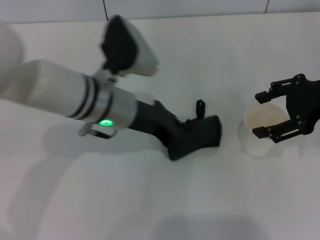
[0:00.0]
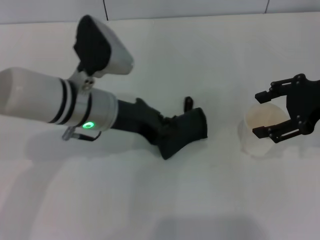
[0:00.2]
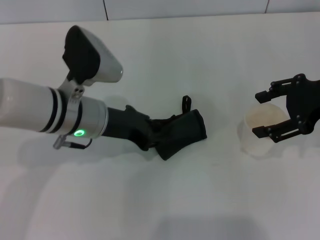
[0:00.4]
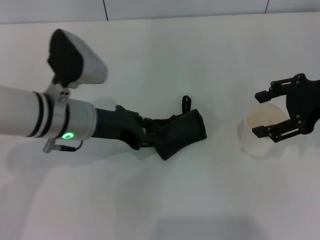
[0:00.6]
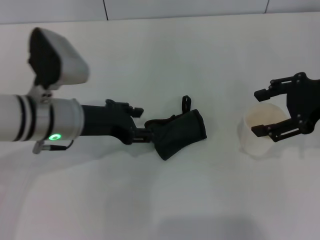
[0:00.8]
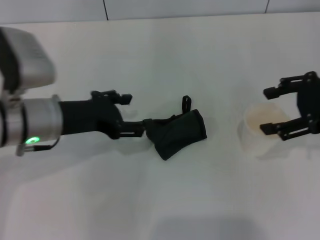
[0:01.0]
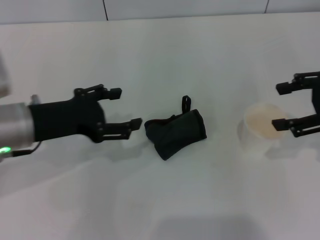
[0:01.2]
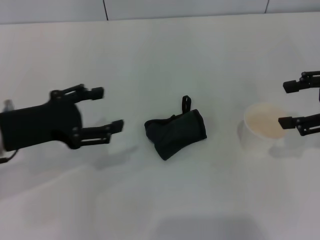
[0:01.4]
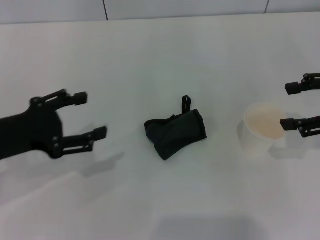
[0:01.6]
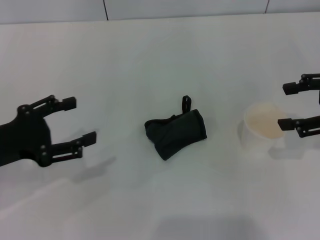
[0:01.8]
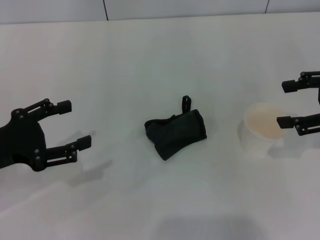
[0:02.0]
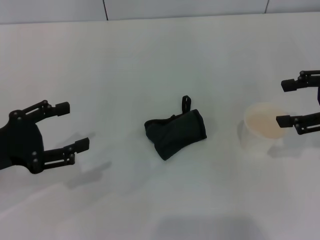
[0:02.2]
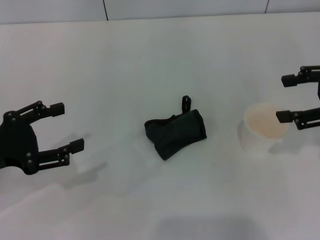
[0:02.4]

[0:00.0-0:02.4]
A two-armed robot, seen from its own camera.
Step, 0:00.2 to 0:01.2: Place the rag on the table with the left gripper.
0:00.0 to 0:01.2: The left gripper is displaced to the left and backward by roughly 15 cm, and opens its fingers.
0:01.2 to 0:02.4: The left gripper travels to the left and backward by about 10 cm.

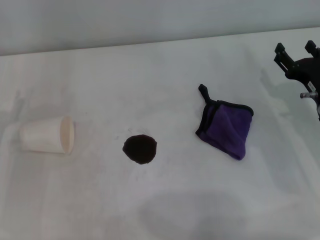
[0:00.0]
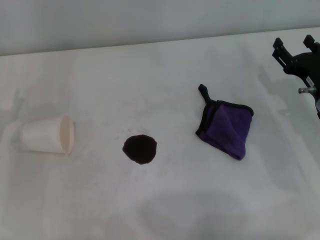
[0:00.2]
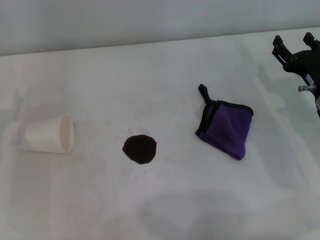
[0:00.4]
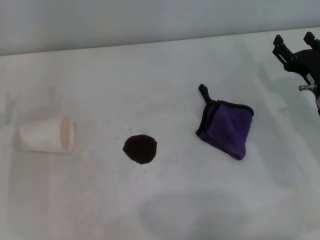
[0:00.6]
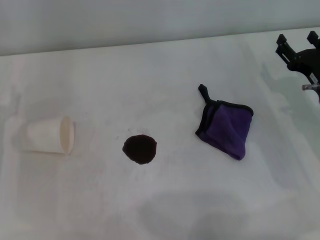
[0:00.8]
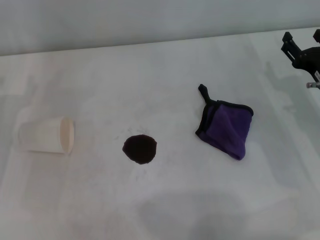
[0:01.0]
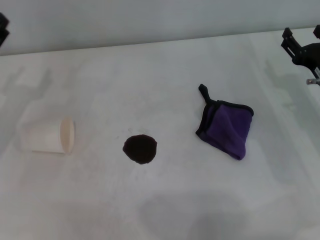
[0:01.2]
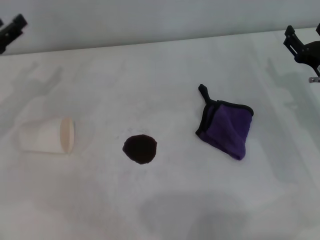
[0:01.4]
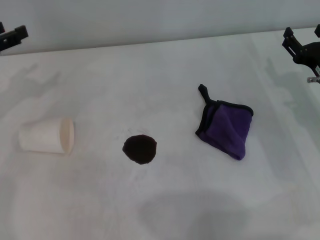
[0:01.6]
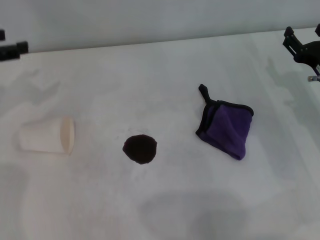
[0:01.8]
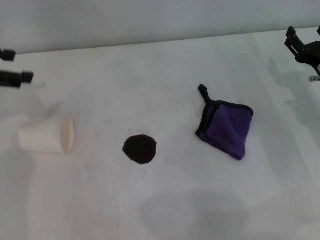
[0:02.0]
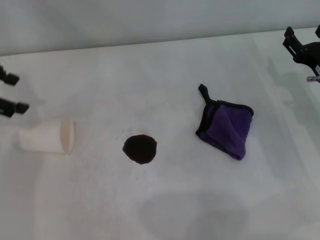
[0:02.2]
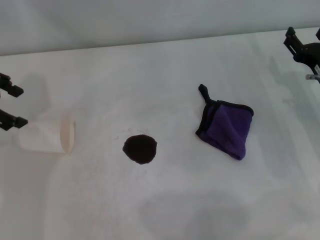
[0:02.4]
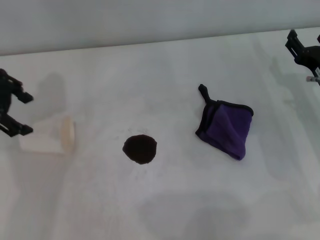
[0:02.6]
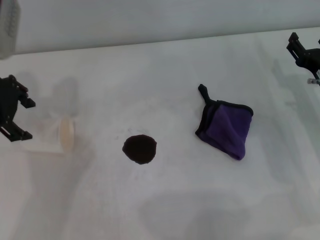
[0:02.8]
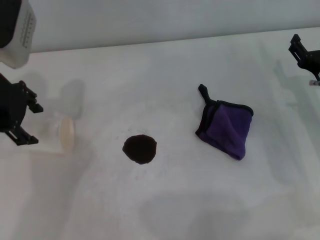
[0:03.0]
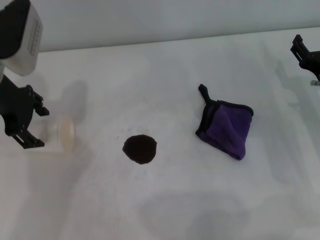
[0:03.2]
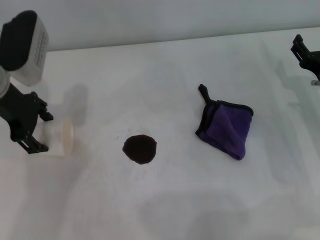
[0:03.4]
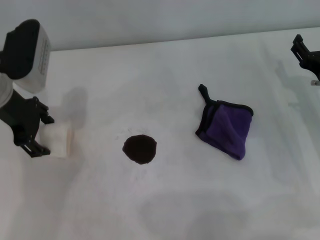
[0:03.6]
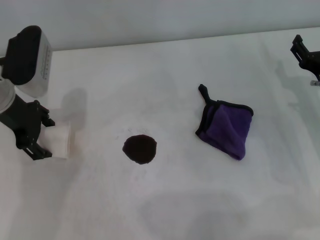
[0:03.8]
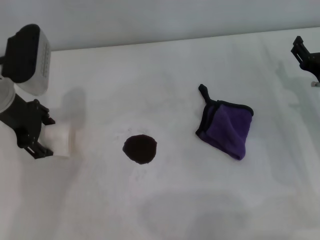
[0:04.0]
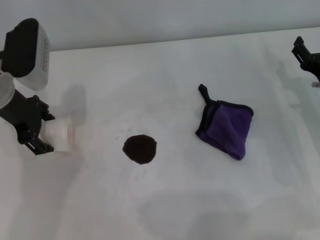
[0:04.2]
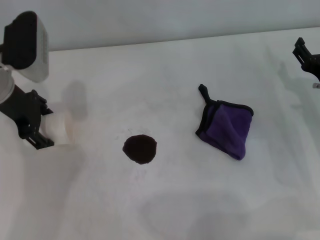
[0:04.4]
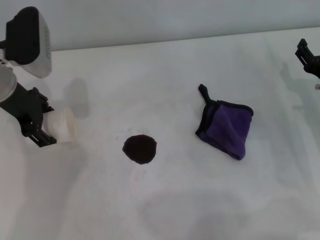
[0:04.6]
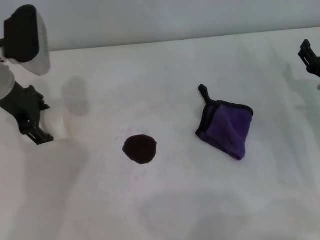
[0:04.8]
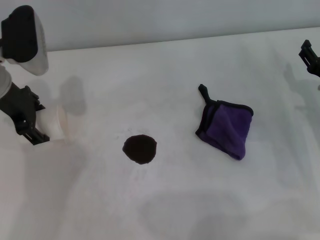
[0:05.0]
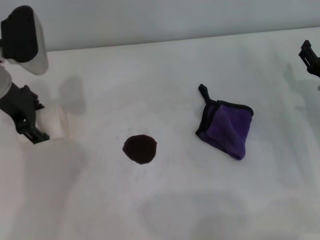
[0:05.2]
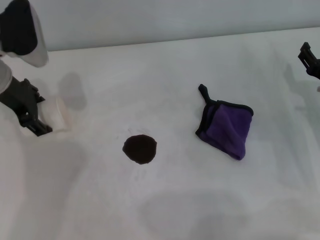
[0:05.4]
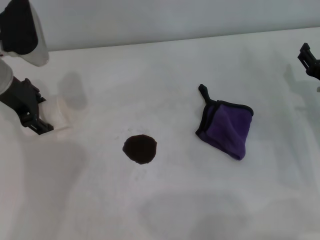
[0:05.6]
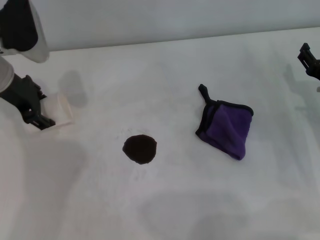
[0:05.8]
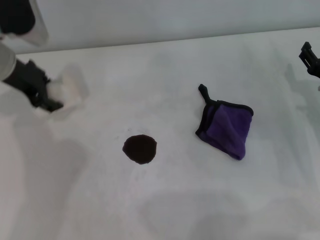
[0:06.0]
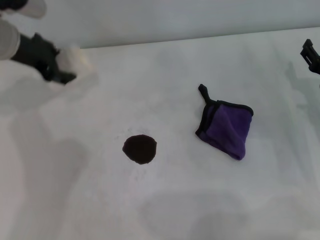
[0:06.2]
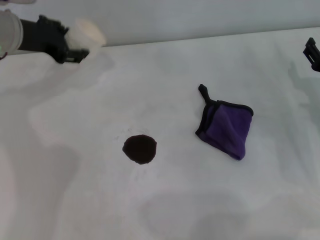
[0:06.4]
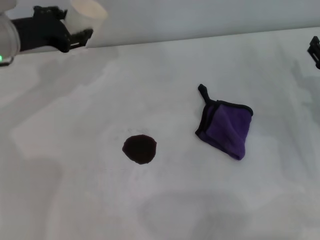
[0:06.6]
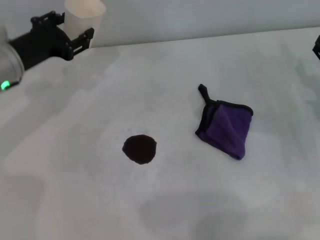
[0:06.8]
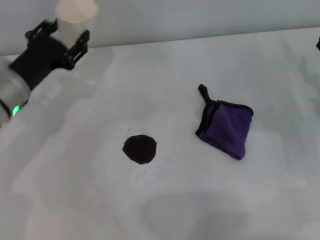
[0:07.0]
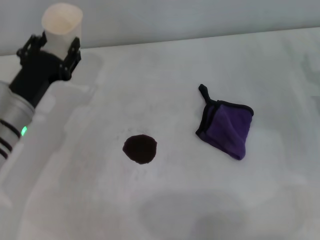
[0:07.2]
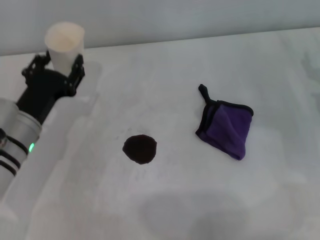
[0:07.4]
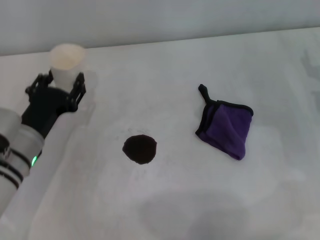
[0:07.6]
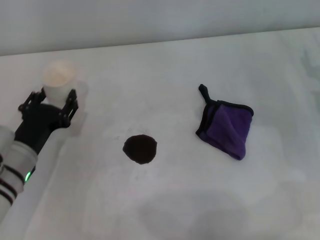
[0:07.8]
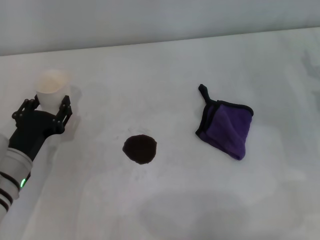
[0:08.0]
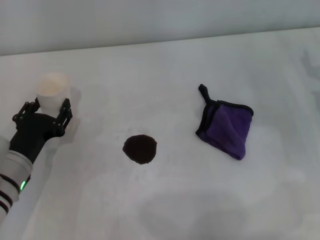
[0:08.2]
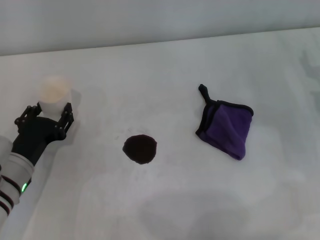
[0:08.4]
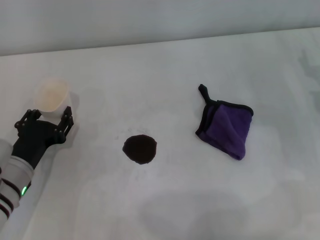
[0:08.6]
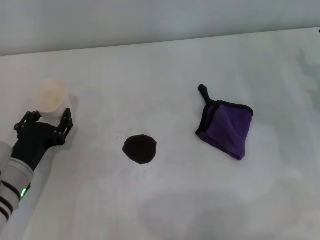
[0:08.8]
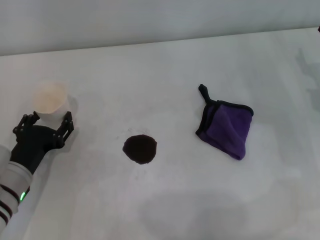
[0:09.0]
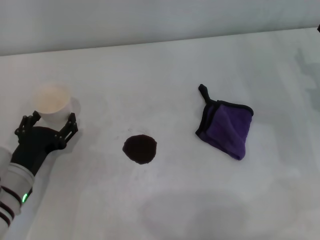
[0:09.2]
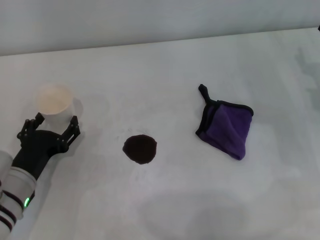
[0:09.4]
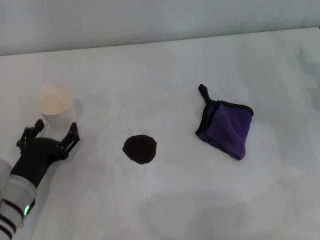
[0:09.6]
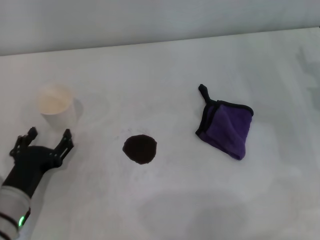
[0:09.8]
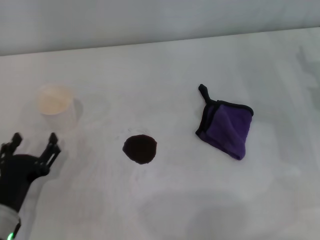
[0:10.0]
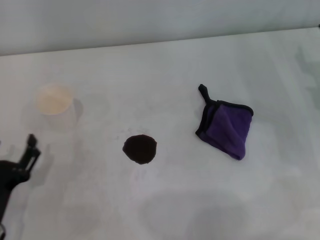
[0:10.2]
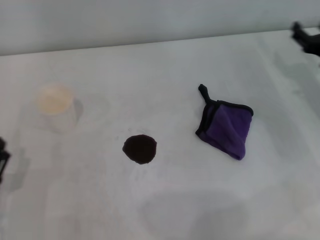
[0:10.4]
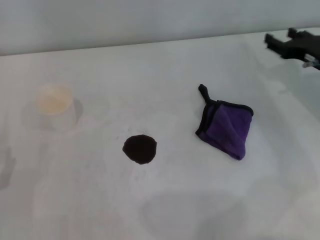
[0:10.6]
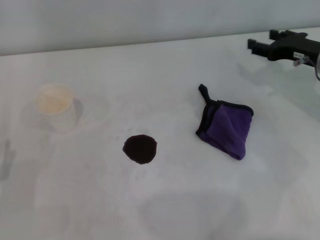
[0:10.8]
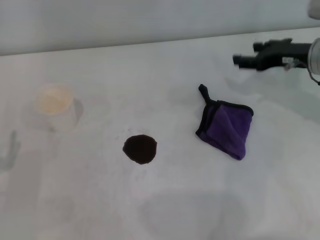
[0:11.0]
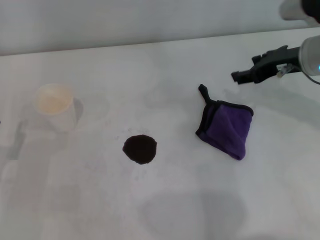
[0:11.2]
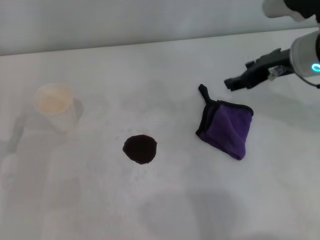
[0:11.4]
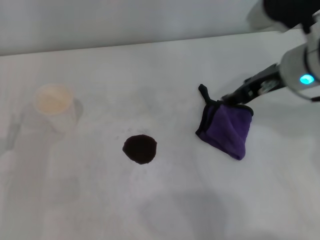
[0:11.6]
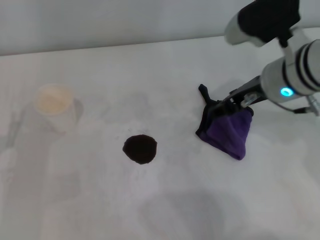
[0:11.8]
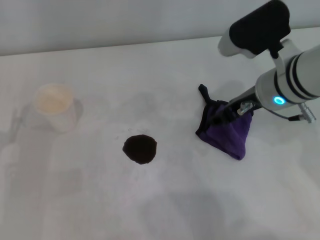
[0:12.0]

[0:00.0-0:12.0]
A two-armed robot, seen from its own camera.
Step, 0:00.0 to 0:04.4: Grasp the paper cup with the left gripper.
Step, 0:04.6 to 0:09.4: Stand the paper cup upright with the left gripper.
0:00.0 to 0:01.6: The left gripper goes about 15 cm upward and forward.
0:01.6 to 0:03.0: The left gripper heads to the right, covering approximately 10 cm.
0:03.0 to 0:04.4: The grippers stay close to where they were, moving slightly.
0:04.4 to 0:06.0: The left gripper closes its fingers.
0:06.0 to 0:07.6: The left gripper shifts approximately 20 cm downward and backward. The right gripper moves some 5 cm.
0:07.6 to 0:09.0: The left gripper moves approximately 5 cm.
0:09.0 to 0:10.4: The left gripper shifts approximately 10 cm backward, and opens.
0:10.4 to 0:12.0: The right gripper moves to the left and upward, some 20 cm.

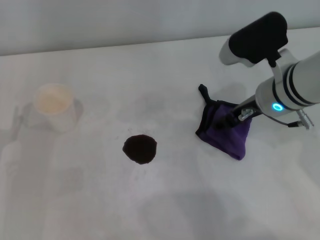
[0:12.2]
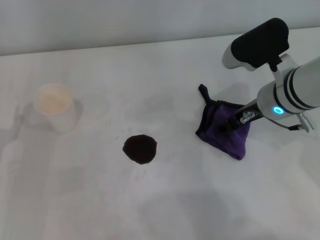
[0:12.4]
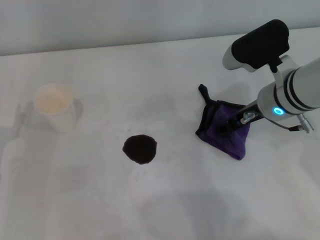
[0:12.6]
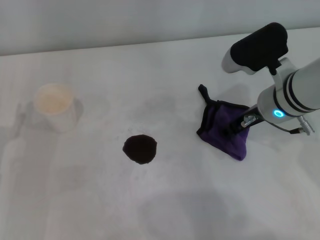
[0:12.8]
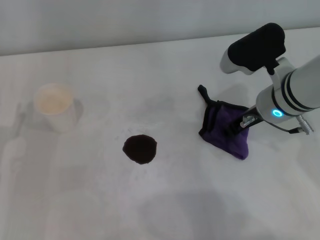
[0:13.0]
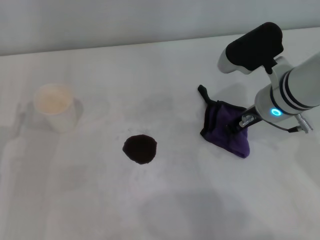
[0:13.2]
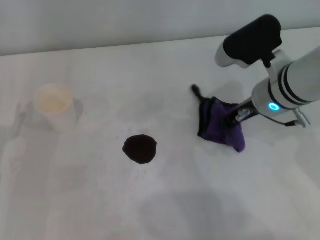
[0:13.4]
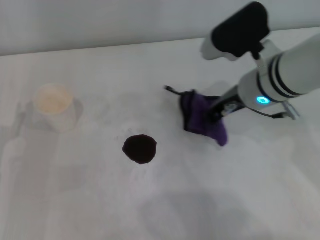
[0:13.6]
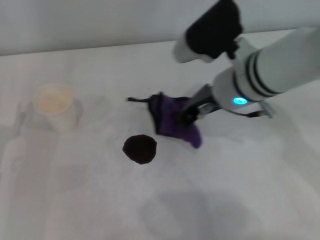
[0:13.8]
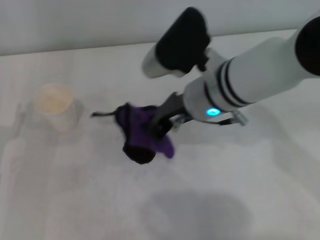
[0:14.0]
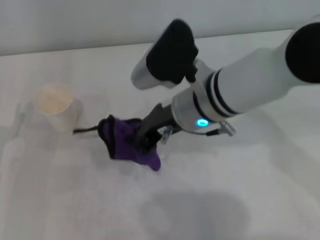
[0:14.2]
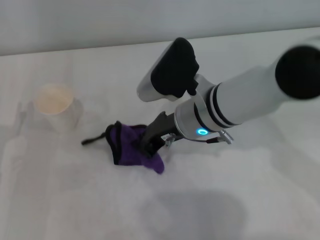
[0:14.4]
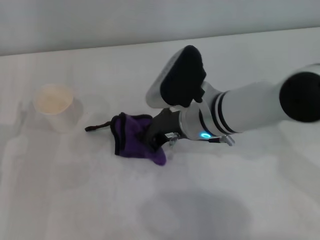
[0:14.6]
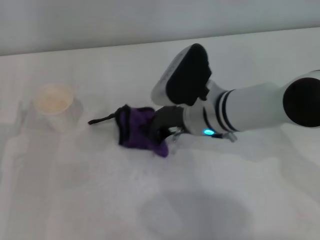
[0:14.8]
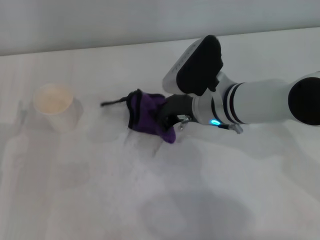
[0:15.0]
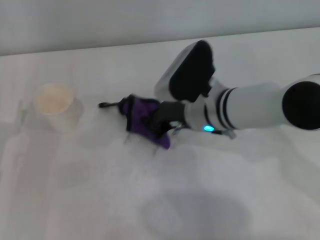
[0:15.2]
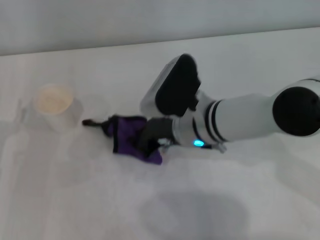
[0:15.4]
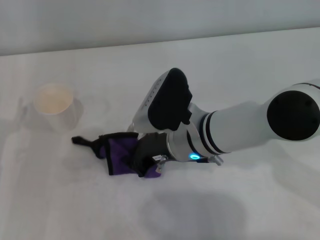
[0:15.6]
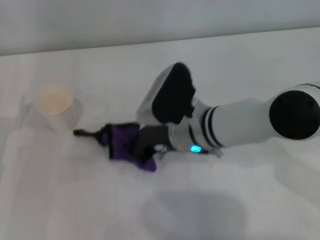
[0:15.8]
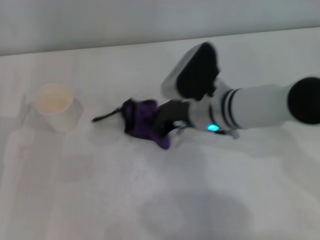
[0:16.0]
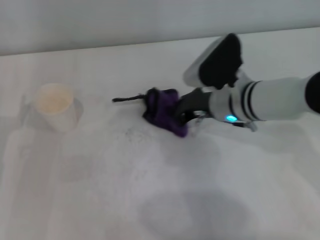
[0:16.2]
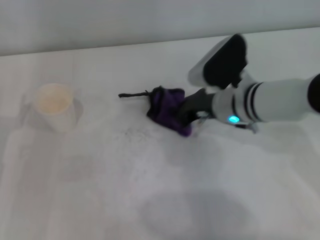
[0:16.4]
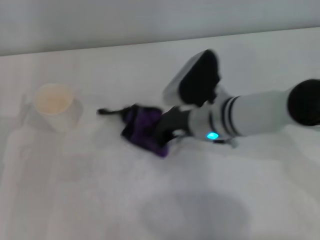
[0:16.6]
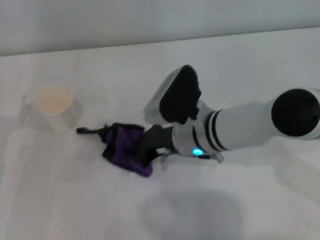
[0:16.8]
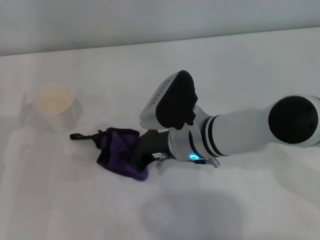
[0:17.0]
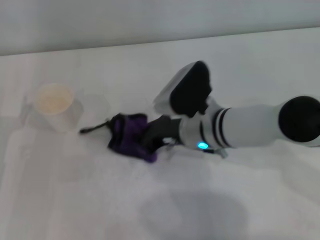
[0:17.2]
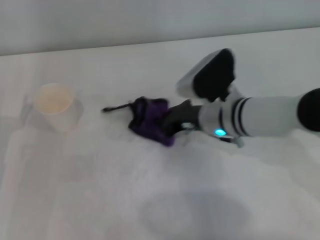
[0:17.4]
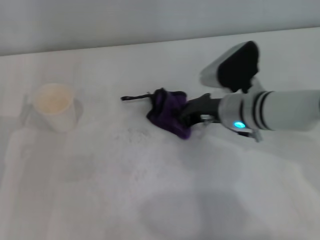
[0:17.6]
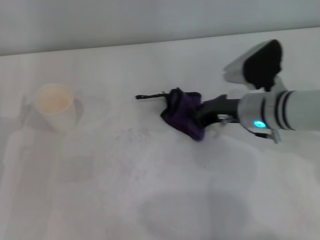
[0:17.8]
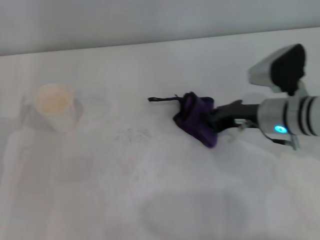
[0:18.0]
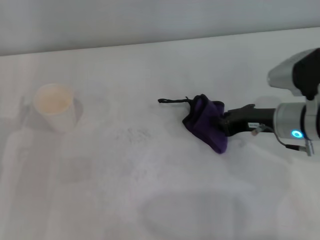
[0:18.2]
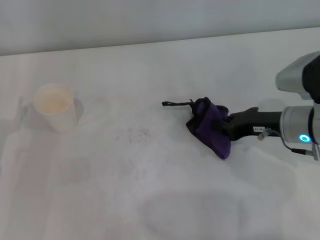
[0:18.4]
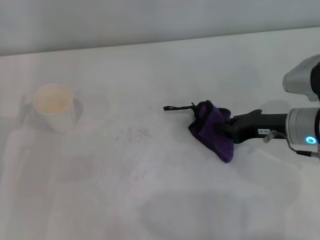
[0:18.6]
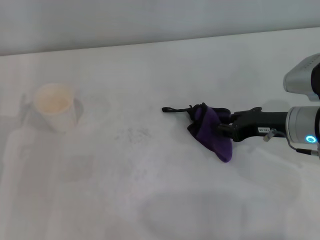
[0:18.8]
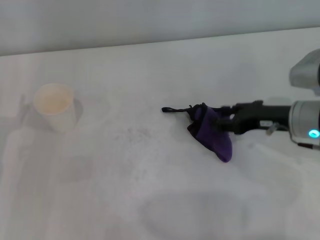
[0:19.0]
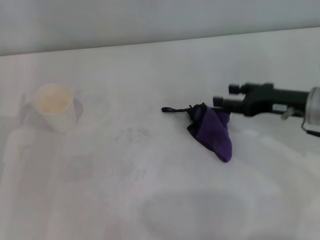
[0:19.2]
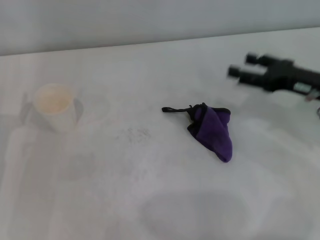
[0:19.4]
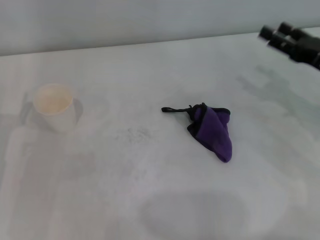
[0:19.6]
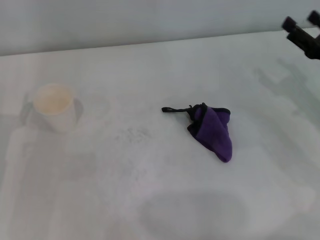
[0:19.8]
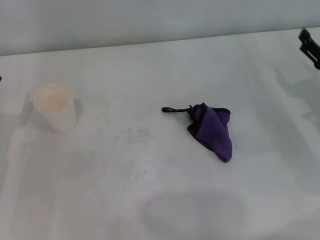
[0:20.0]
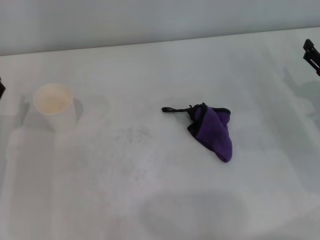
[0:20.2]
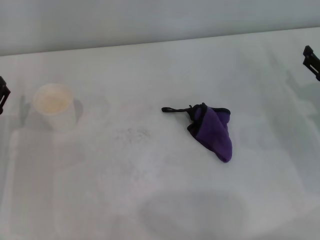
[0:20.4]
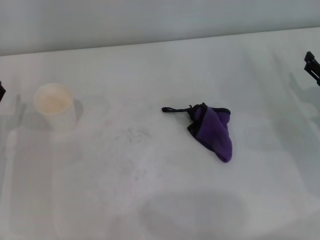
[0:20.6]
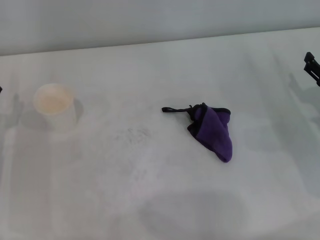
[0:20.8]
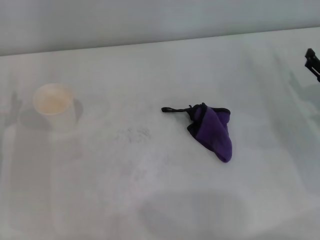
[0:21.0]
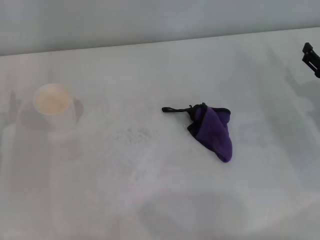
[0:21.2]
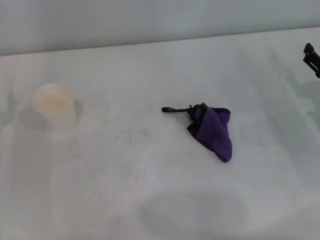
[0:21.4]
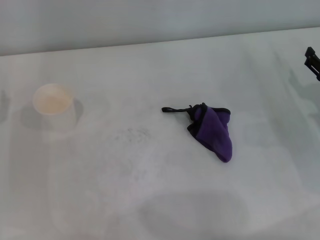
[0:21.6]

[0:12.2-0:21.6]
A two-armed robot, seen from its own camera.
Step, 0:13.2 to 0:18.0: Wipe the stains off the table with the right gripper.
Step, 0:18.2 to 0:18.8: Place the rag on the table with the right gripper.
0:12.2 to 0:13.8: The right gripper goes approximately 5 cm to the left, and closes.
0:13.8 to 0:15.4: The right gripper is displaced downward by roughly 5 cm.
0:15.4 to 0:17.0: The right gripper moves some 5 cm to the right and comes back.
0:17.0 to 0:18.4: The right gripper moves to the right, about 15 cm.
0:18.4 to 0:20.0: The right gripper goes some 10 cm to the right, and opens its fingers.
